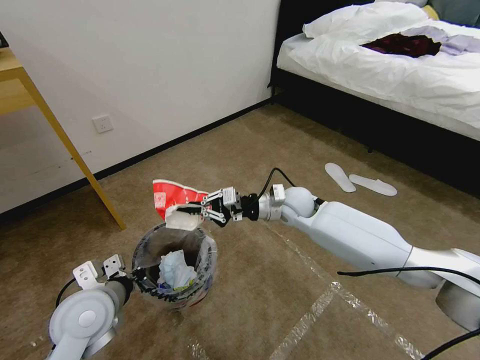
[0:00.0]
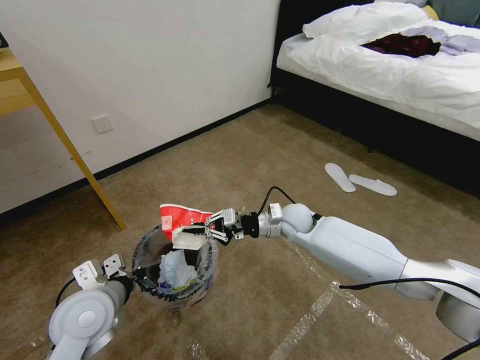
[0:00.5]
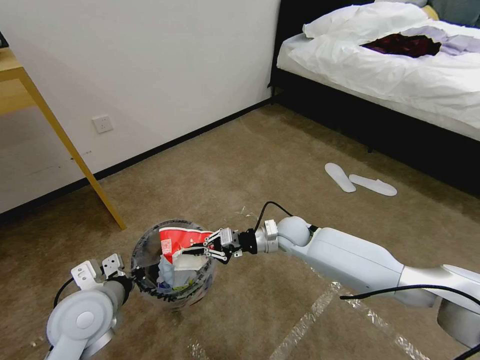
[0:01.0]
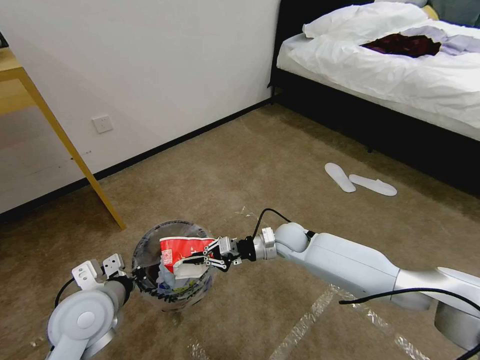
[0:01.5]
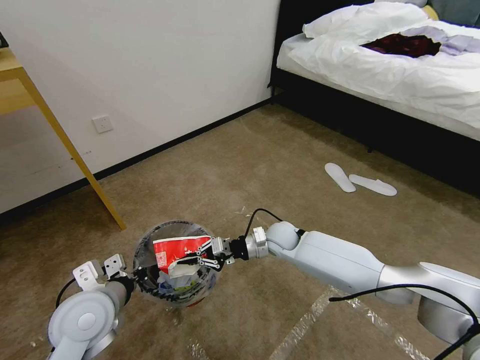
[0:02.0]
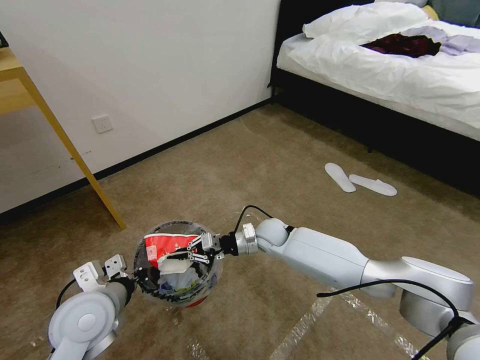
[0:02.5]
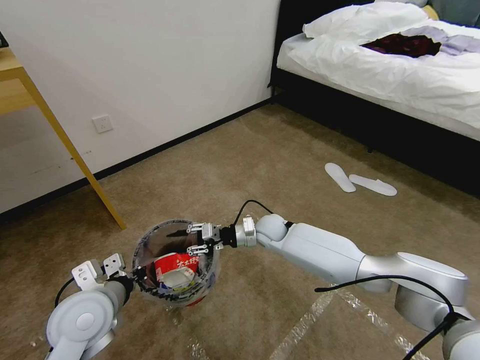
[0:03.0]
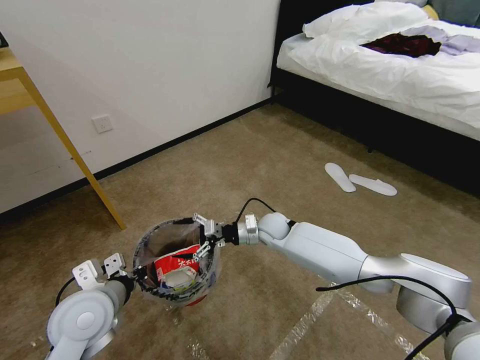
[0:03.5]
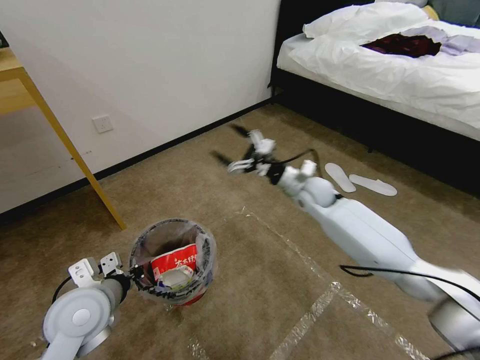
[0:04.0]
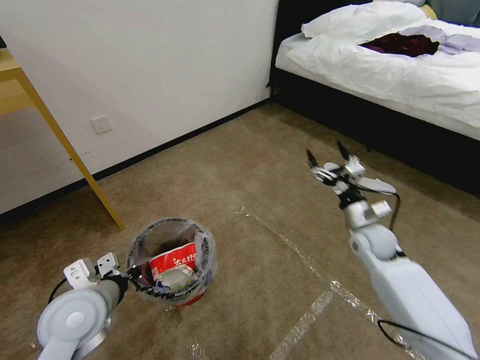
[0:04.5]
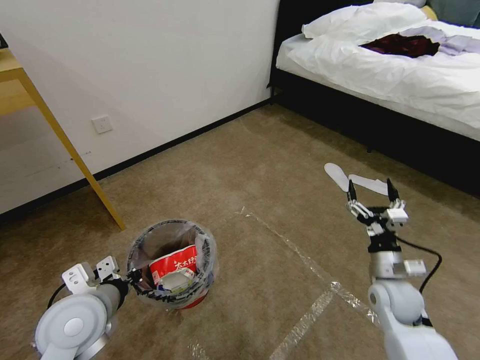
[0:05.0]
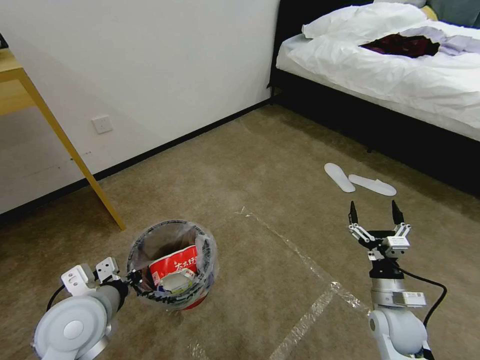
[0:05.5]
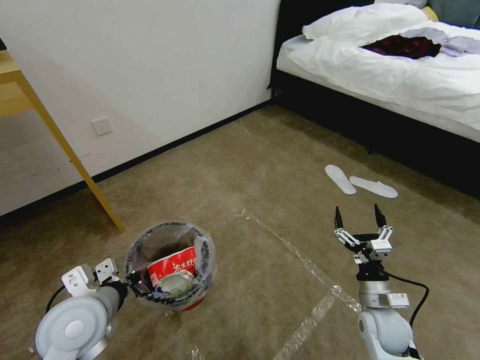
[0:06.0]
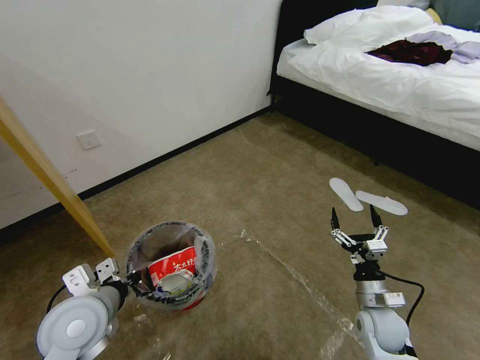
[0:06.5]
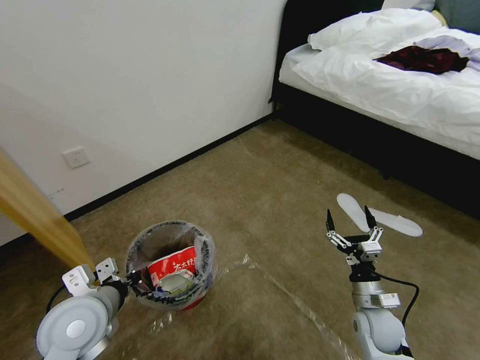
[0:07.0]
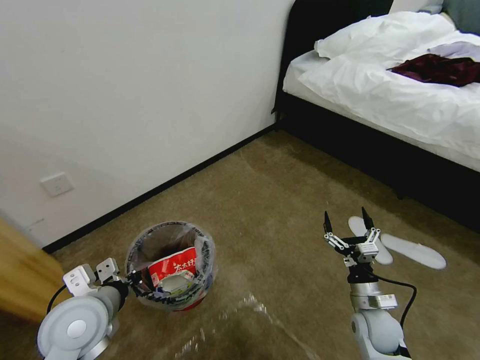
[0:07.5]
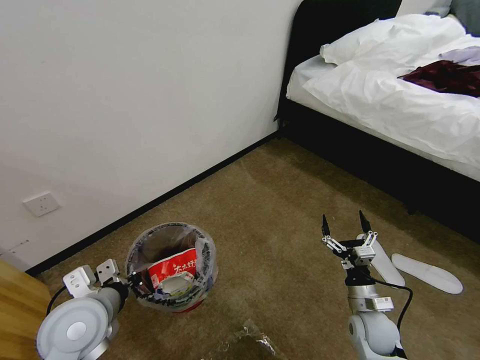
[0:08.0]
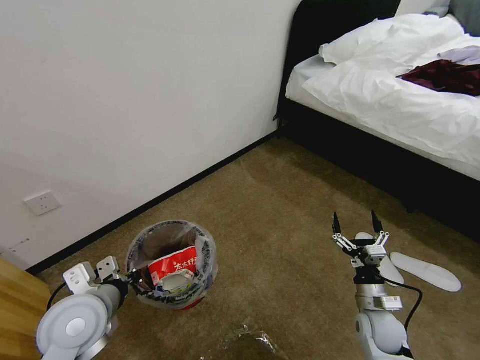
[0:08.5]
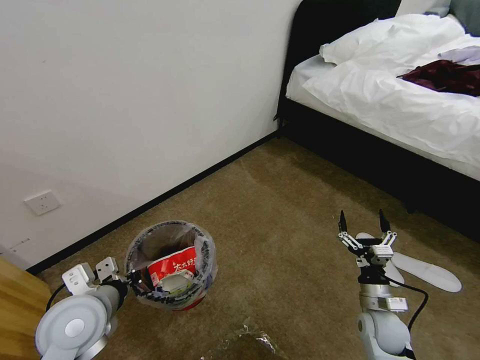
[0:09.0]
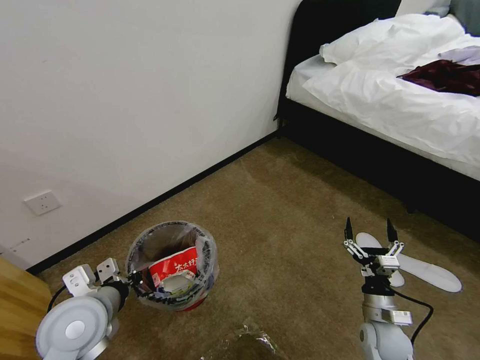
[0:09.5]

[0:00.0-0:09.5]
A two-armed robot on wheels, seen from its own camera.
Task of the whole recording: Pick up the trash bin and place the garbage on the floor into it.
0:00.0 to 0:02.0: The right gripper goes approximately 10 cm downward.
0:02.0 to 0:04.0: The right gripper heads upward, to the right and forward, covering some 15 cm, and opens.
0:04.0 to 0:05.5: The right gripper shifts roughly 35 cm backward, downward and to the right.
0:07.5 to 0:09.5: The grippers move only a little.

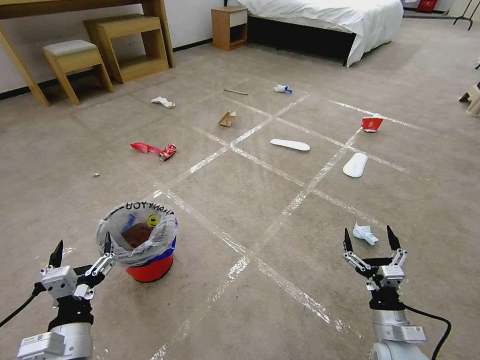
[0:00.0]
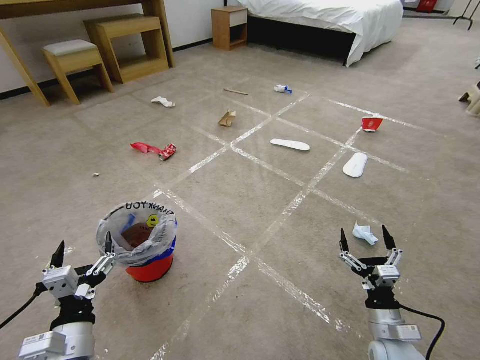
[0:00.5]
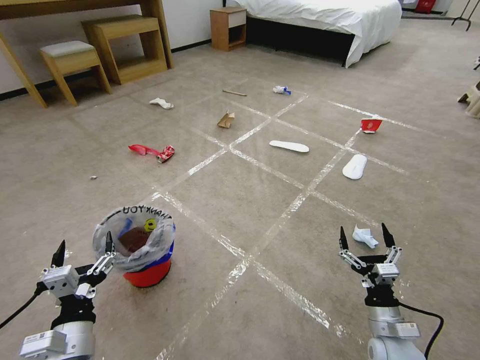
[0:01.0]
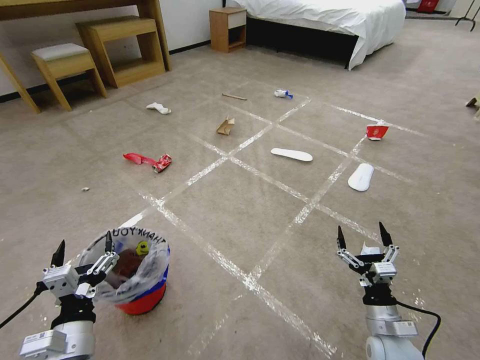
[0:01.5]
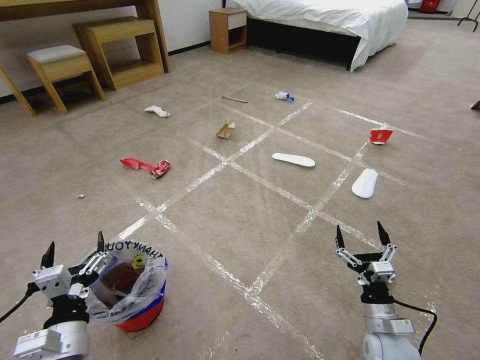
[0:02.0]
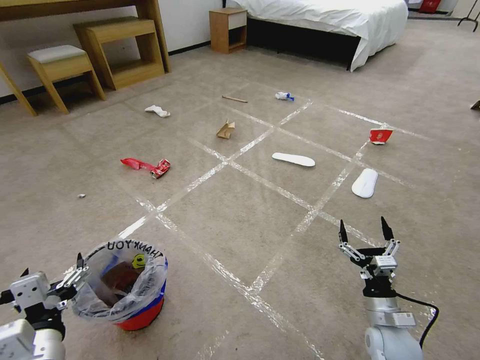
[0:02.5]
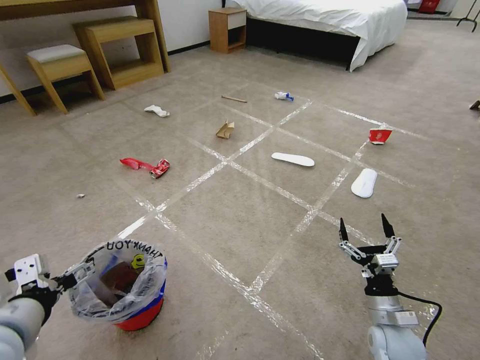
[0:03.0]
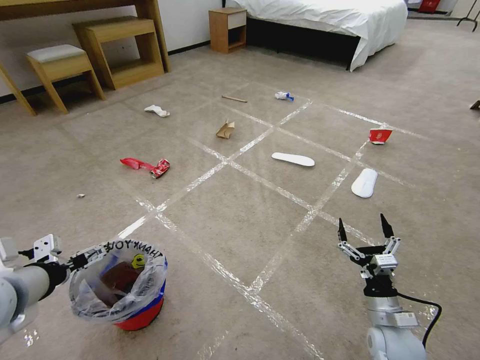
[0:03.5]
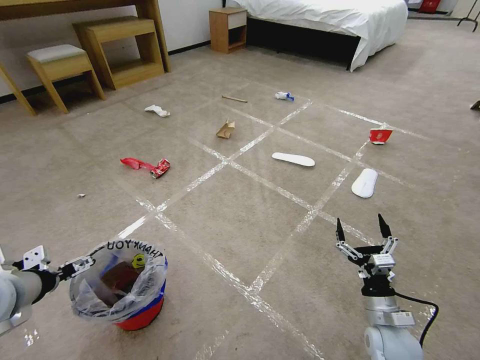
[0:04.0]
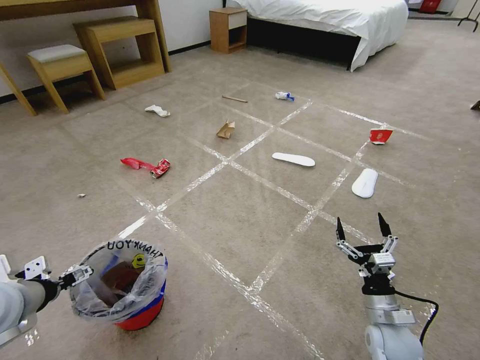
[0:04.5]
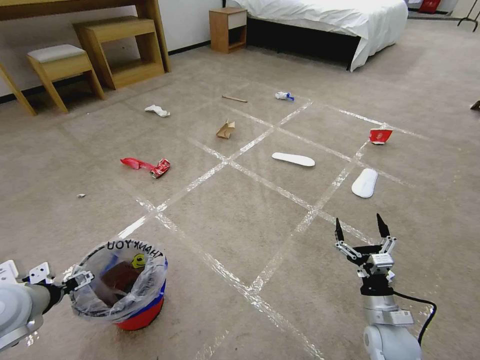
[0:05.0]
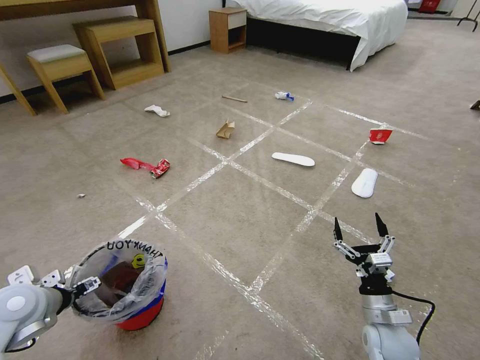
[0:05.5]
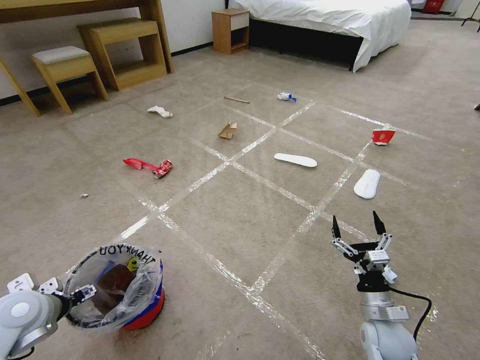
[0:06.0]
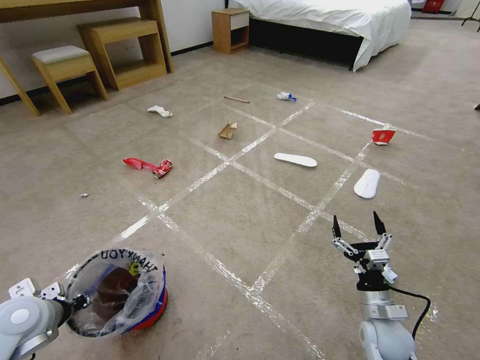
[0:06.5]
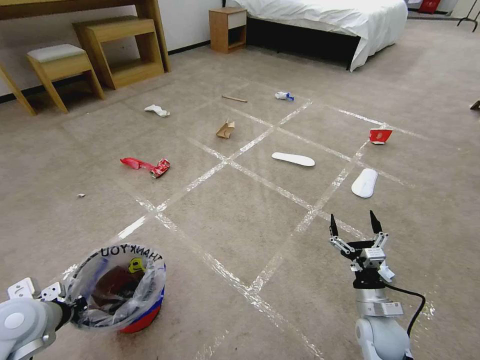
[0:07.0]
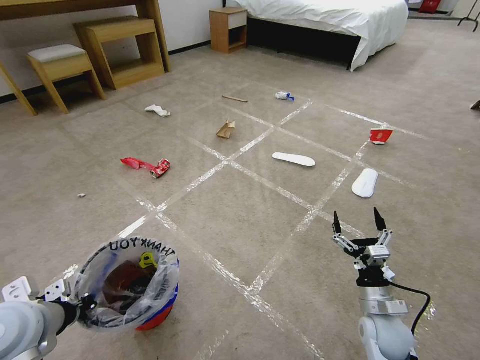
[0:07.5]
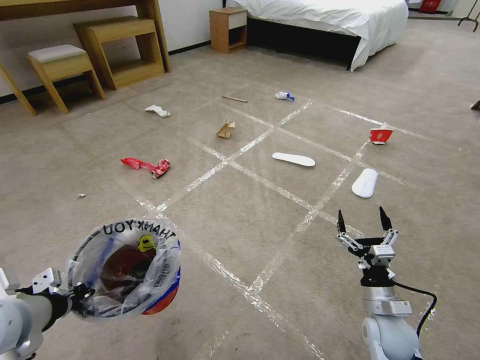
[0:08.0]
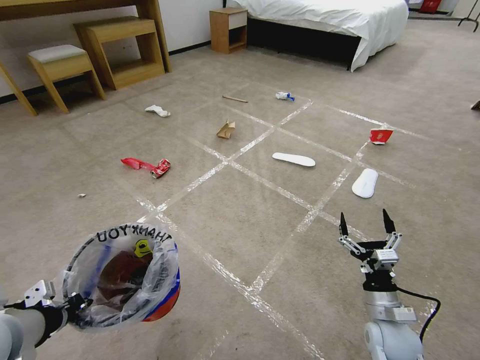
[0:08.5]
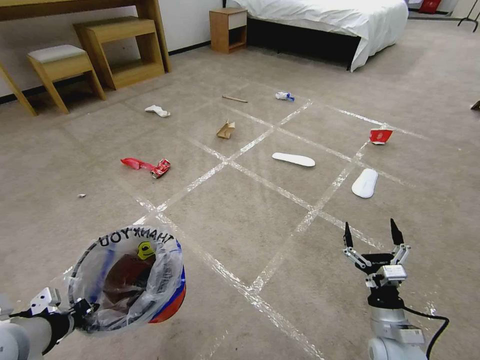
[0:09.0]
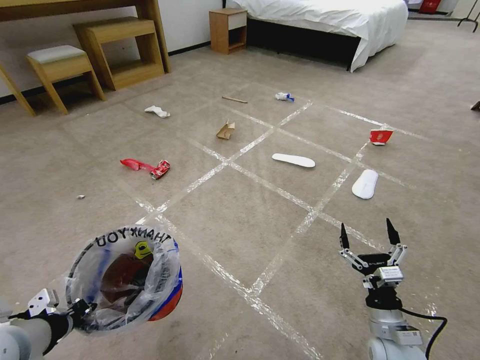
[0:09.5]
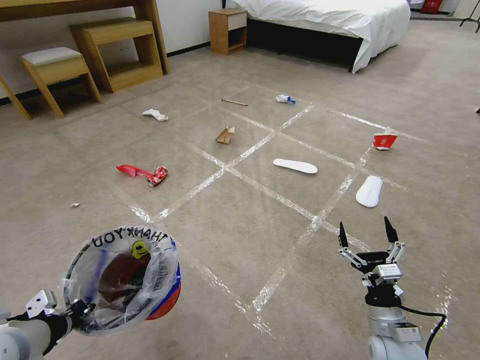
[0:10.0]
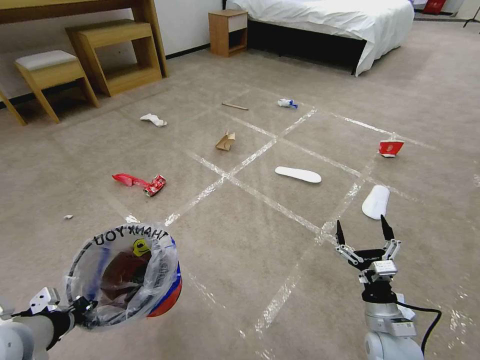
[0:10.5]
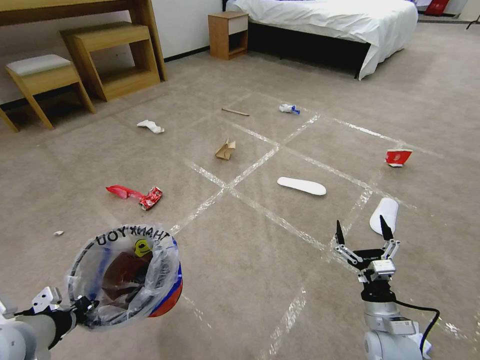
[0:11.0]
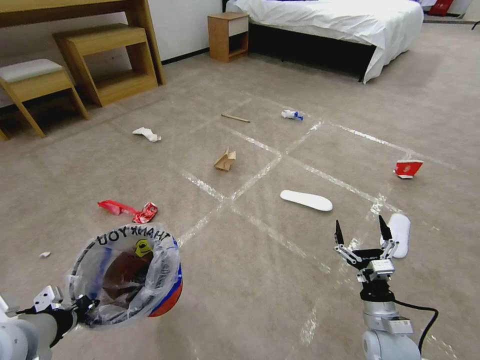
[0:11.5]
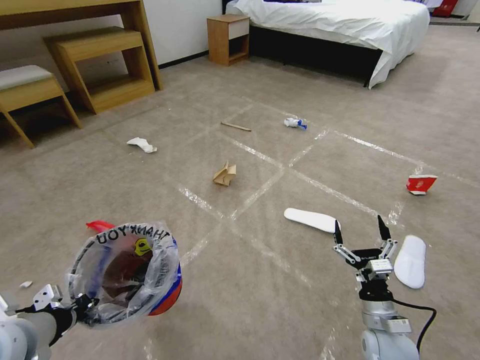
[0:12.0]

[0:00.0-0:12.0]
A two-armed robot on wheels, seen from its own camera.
Task of the whole recording: Pick up the trash bin and place the garbage on the floor into it.
0:02.0 to 0:04.0: The left gripper shifts some 20 cm upward, to the left and forward.
0:04.0 to 0:06.0: The left gripper is displaced downward by about 10 cm.
0:06.0 to 0:08.0: The left gripper heads upward, to the right and backward, covering roughly 15 cm, and closes up.
0:08.0 to 0:10.0: The grippers make only small movements.

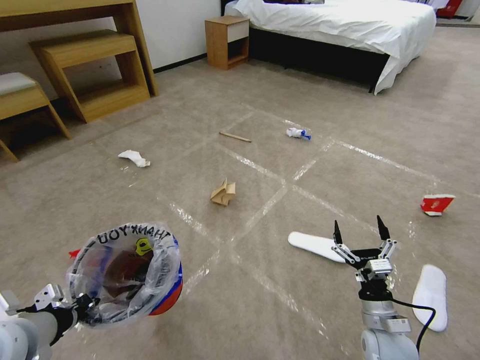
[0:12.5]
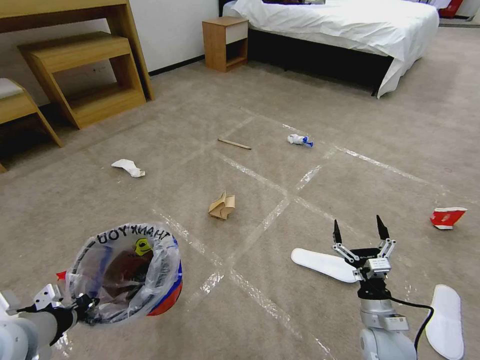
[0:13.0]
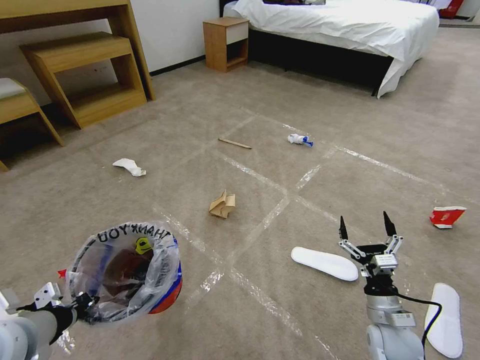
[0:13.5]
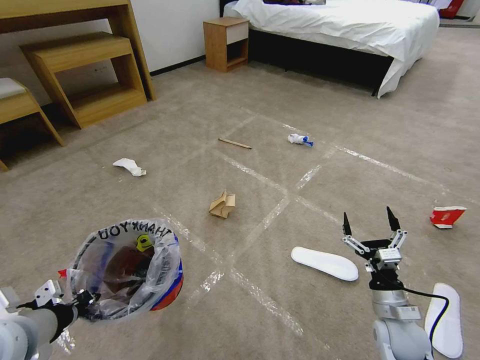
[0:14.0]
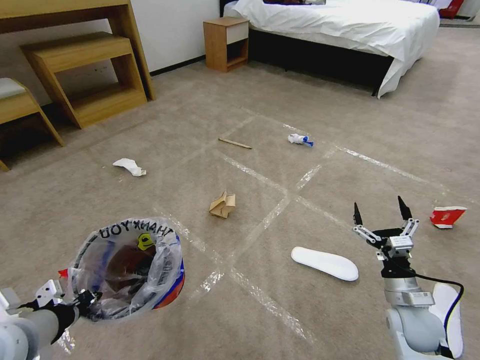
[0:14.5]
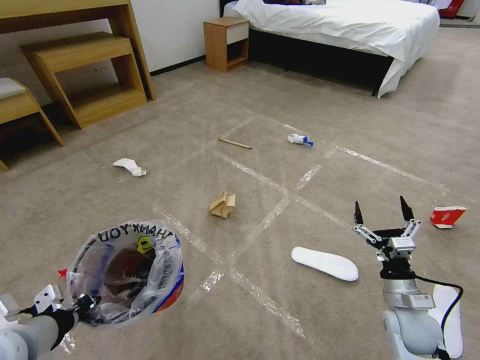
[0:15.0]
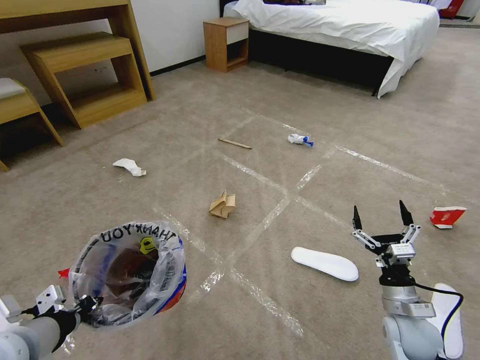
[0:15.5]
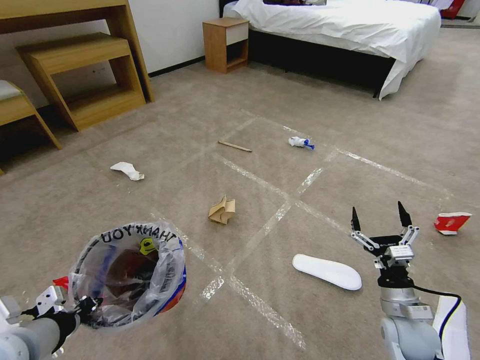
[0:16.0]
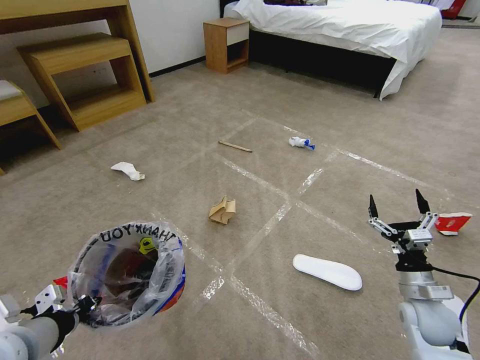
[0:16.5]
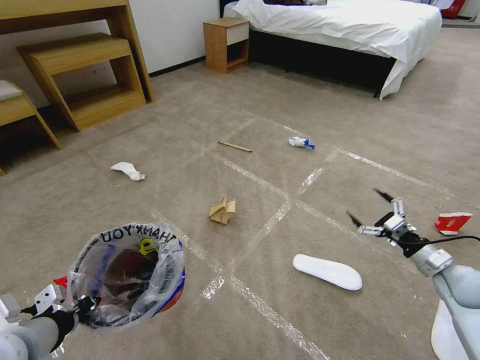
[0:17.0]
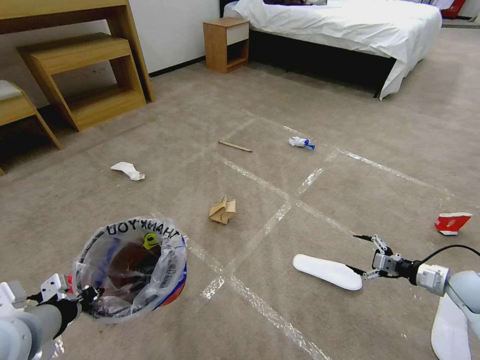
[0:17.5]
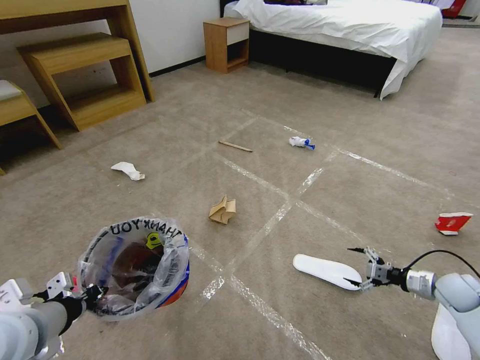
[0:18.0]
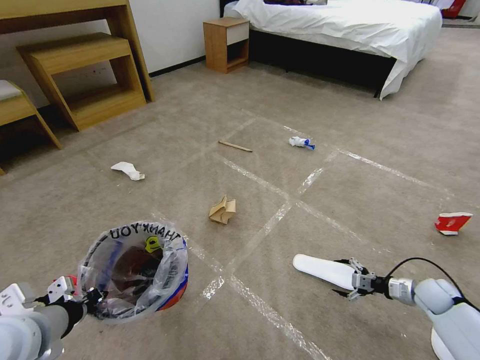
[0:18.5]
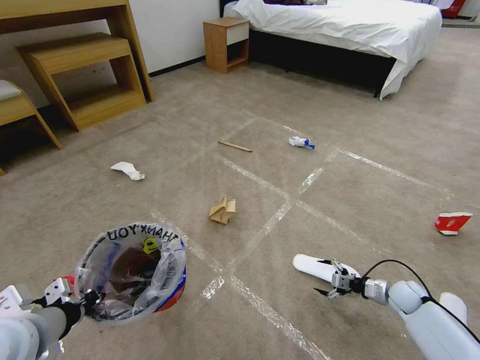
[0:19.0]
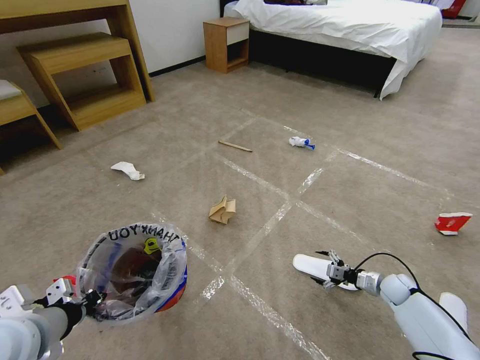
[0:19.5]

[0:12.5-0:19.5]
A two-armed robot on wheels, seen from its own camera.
Task of the whole recording: Pick up the trash bin and place the garbage on the floor into it.
0:12.5 to 0:14.5: The right gripper moves to the right, roughly 5 cm.
0:14.5 to 0:16.0: The grippers move only a little.
0:16.0 to 0:17.5: The right gripper is displaced to the right and forward by approximately 20 cm.
0:17.5 to 0:19.5: The right gripper goes roughly 15 cm downward, to the left and forward.
